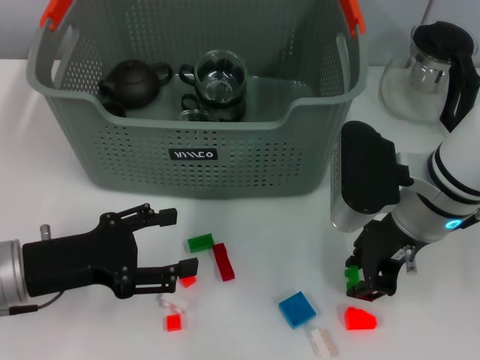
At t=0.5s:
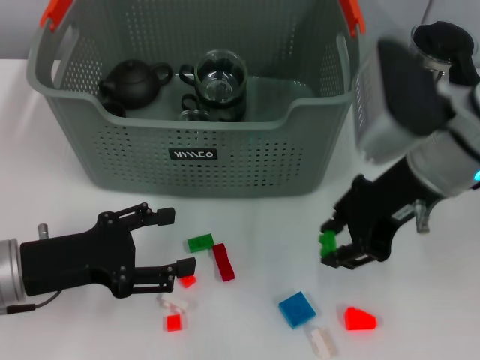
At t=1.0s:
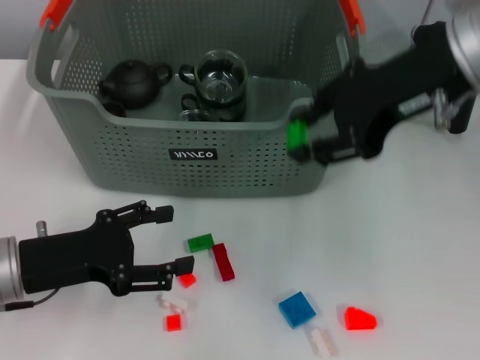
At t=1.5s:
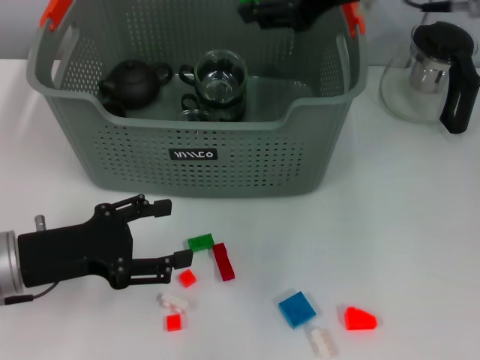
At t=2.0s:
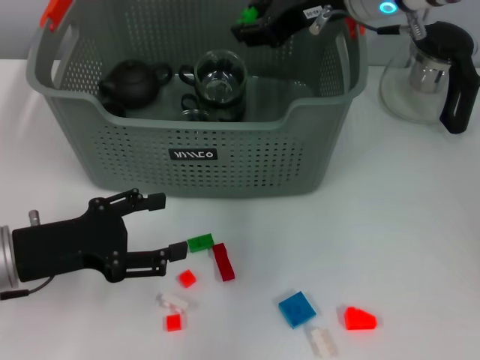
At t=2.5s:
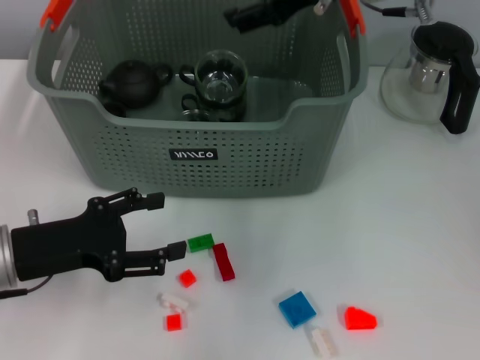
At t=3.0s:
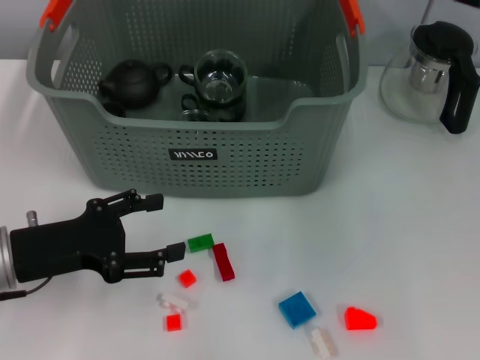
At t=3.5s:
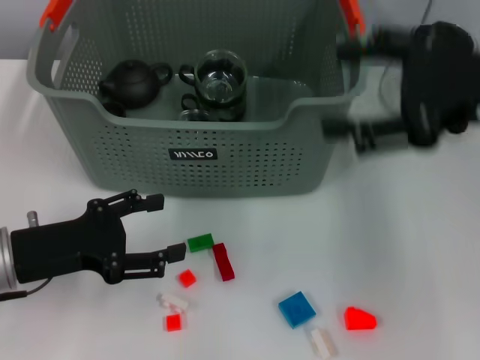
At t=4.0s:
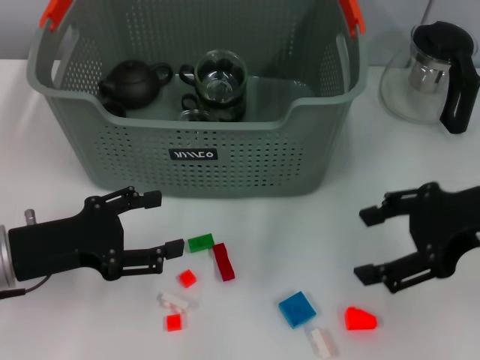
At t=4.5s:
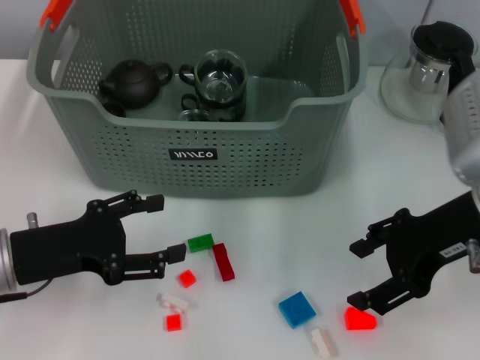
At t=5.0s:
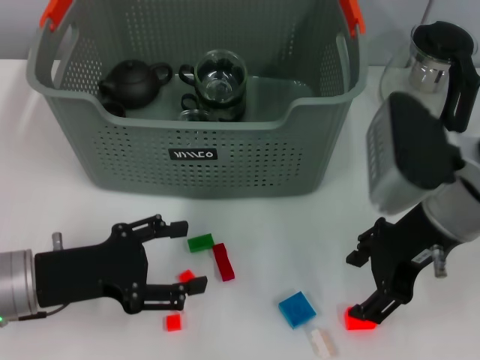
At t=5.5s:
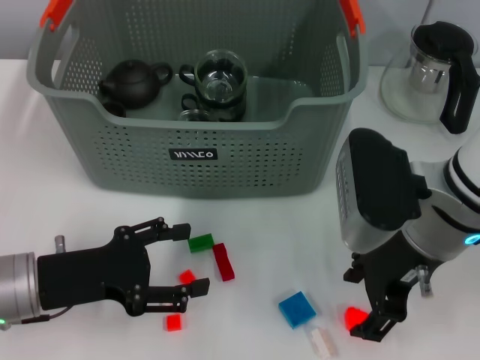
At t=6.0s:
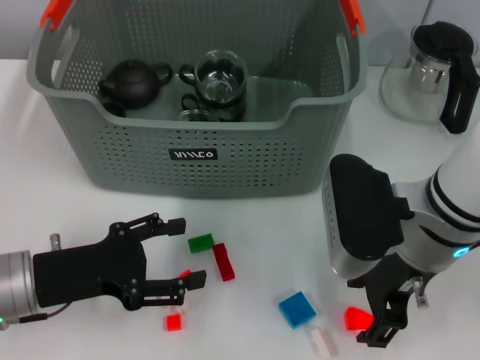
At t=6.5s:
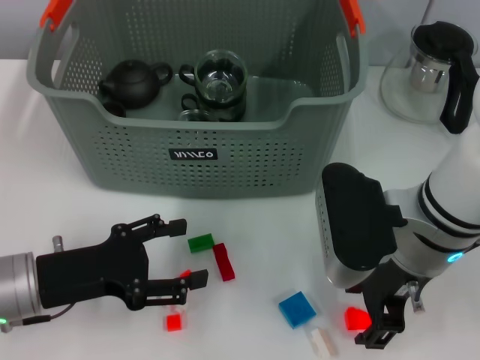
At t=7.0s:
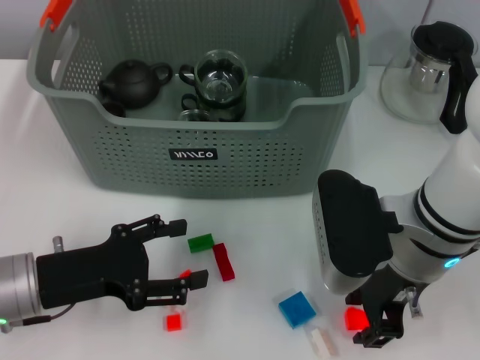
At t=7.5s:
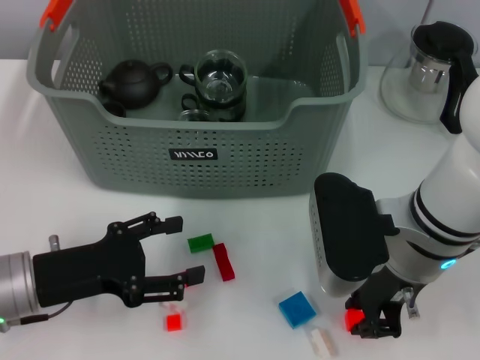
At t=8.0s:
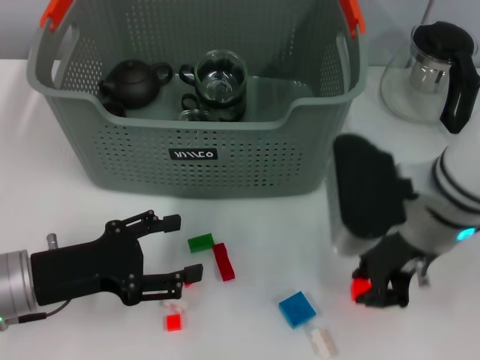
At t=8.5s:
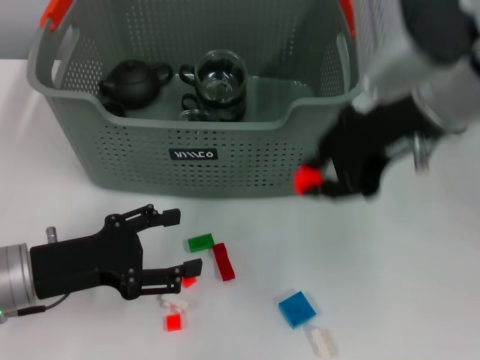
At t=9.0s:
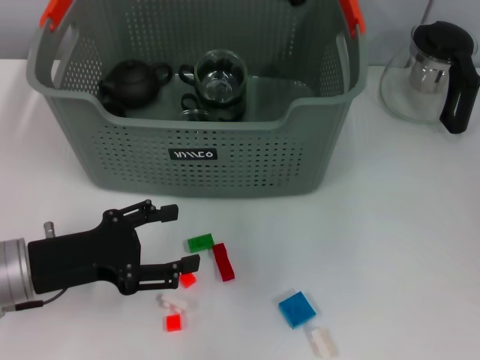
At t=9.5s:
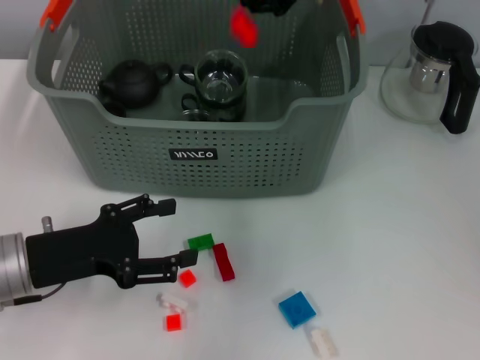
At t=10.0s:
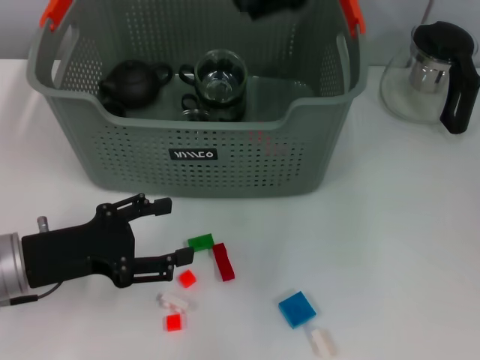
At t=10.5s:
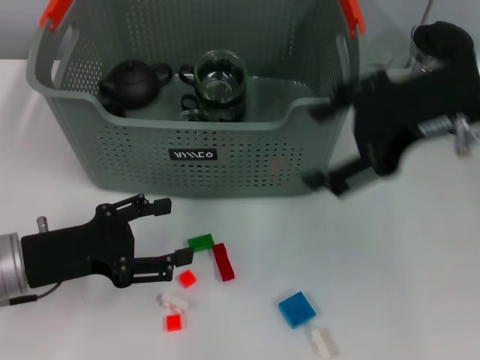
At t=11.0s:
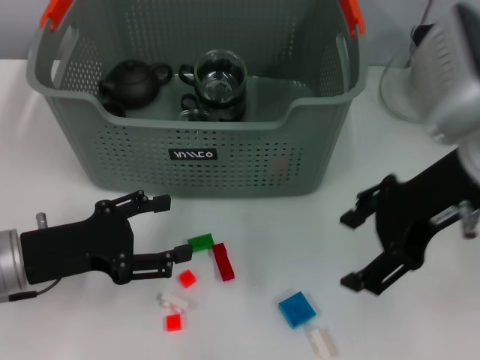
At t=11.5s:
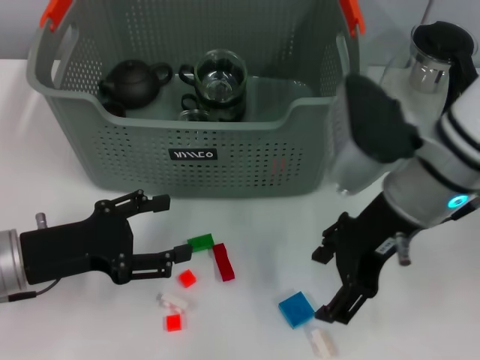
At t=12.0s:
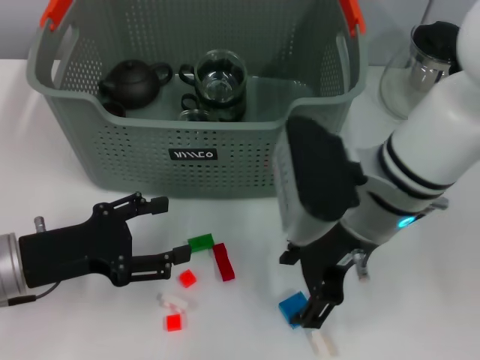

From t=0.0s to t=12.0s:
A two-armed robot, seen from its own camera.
Task of the whole recording: pick up the teacup on the table and place it into the storage bin, pick up the block on the table and place it into the storage bin.
Step, from t=0.0s to t=2.5s: Place the green block in the storage box with right gripper.
Step, from t=3.0s to t=7.5s: Grasp the orange block with right gripper.
Step, from t=8.0s to t=9.5s: Place the orange block in the storage box with right gripper.
From t=0.0s to t=2.0s: The right gripper travels upward and forward by approximately 15 cm.
From t=2.0s to t=4.0s: The right gripper goes about 20 cm backward and to the right, and opens.
From t=4.0s to t=6.0s: The right gripper is displaced to the left and downward by about 10 cm.
From t=6.0s to t=8.0s: The right gripper closes.
From t=8.0s to t=10.0s: The right gripper shifts some 15 cm upward and forward, and opens.
From t=10.0s to t=12.0s: The right gripper heads downward and backward, covering some 15 cm.

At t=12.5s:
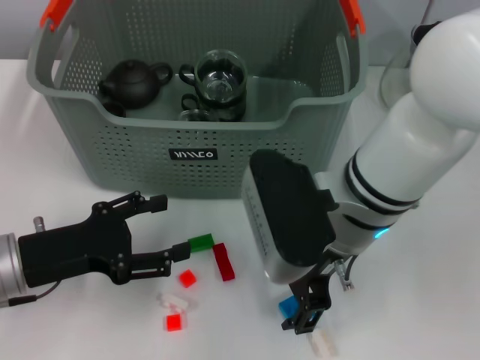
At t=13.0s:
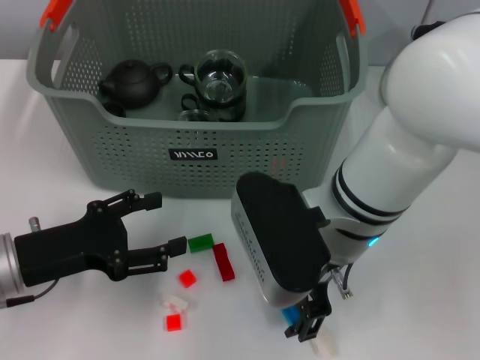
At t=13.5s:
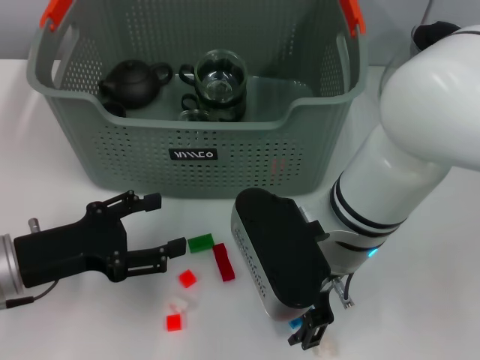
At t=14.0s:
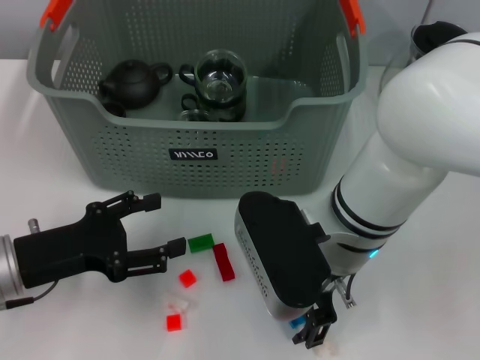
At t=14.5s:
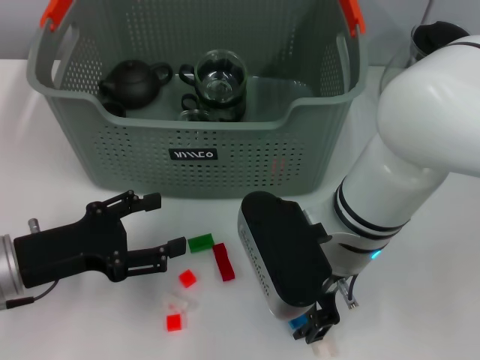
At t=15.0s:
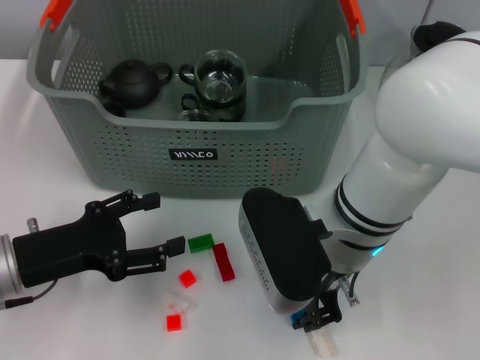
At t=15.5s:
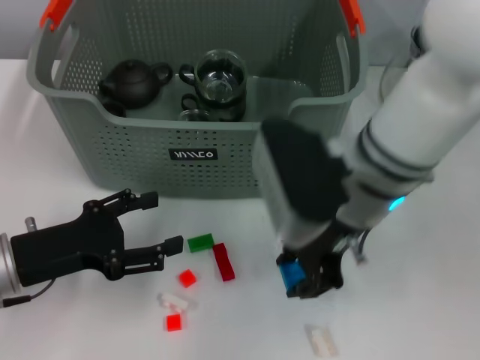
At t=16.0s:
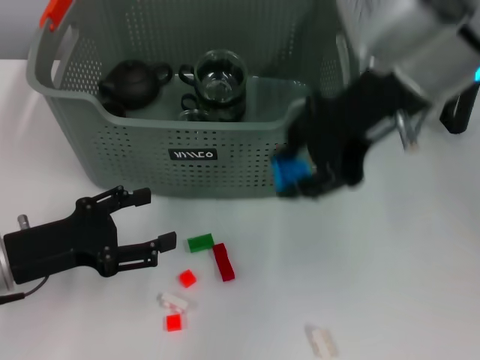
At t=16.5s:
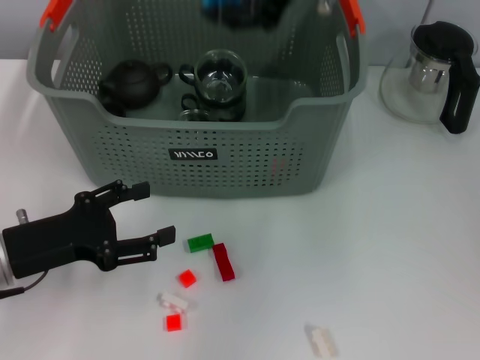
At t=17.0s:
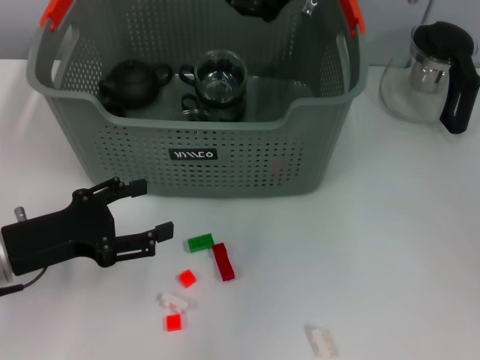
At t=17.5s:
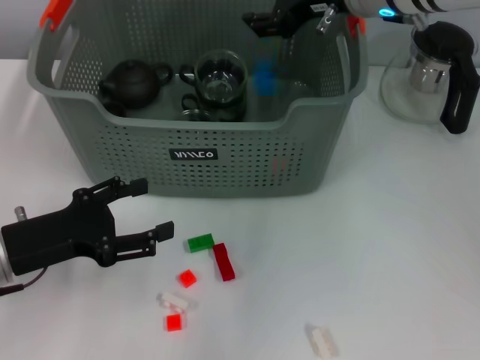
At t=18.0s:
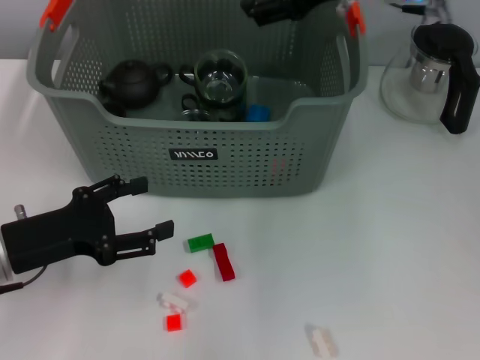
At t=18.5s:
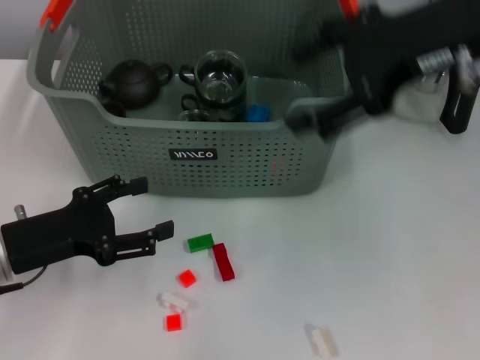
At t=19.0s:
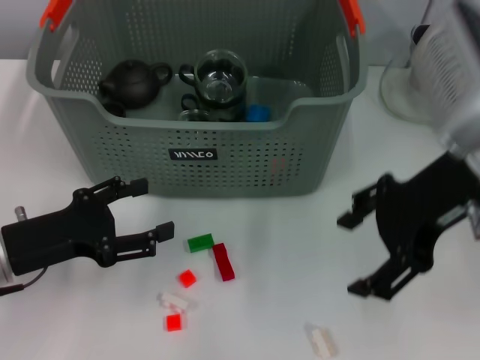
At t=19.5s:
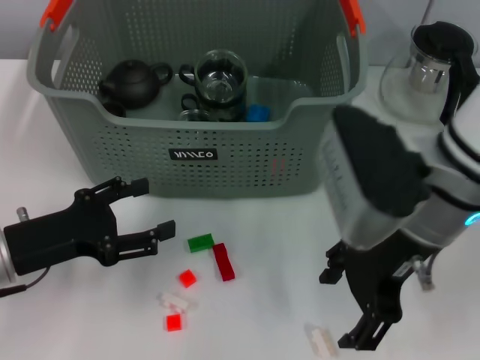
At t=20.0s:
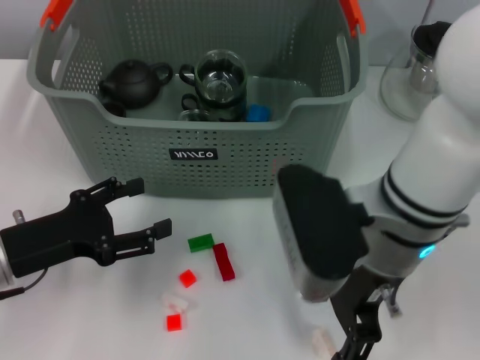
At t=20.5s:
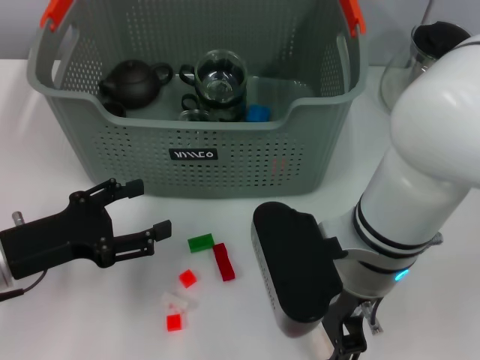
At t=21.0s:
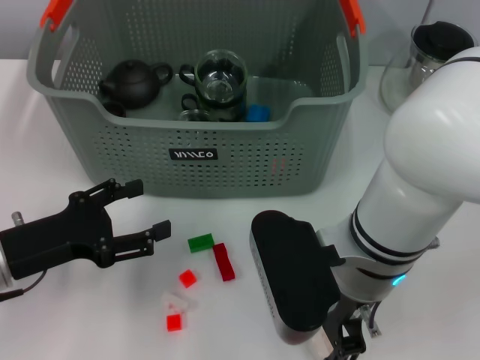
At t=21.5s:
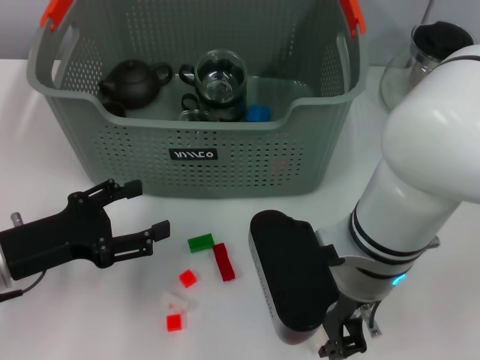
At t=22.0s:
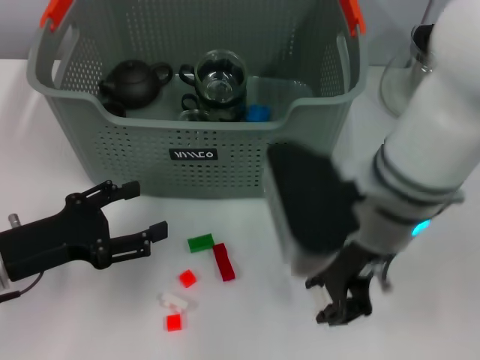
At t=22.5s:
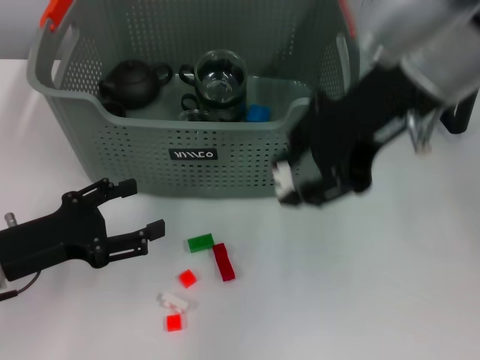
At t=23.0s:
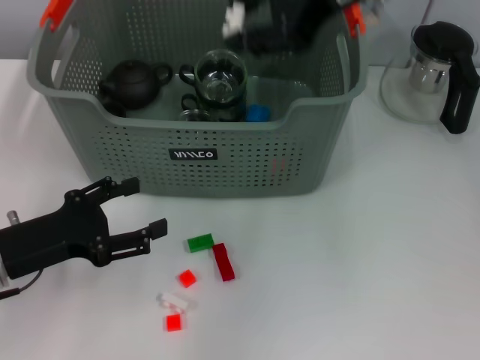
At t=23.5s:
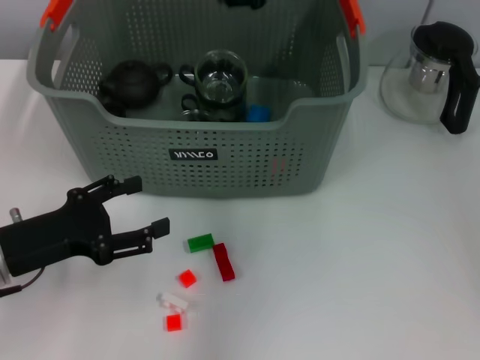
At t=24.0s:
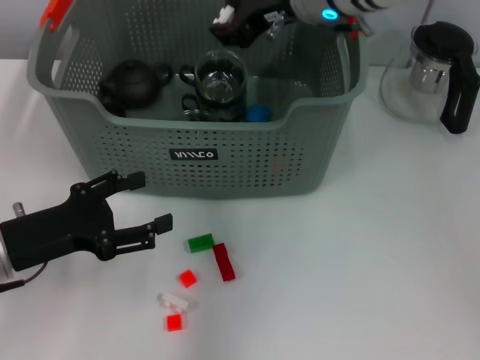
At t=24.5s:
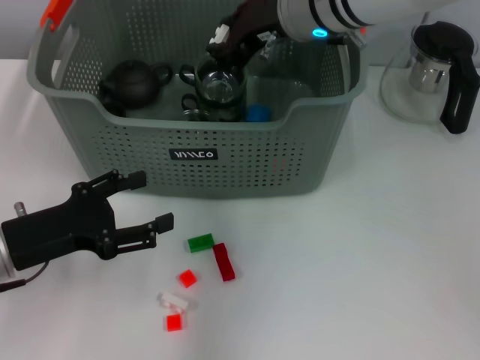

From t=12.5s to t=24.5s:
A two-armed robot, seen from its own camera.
Task of the whole recording: pick up the teacup on the table and place it into the storage bin, pick up the block on the table and place it into the storage bin.
Step, from t=12.5s to t=15.0s: Grasp the dark blue block with right gripper.
Step, from t=15.5s to t=17.5s: Place the dark blue block in the storage box with right gripper.
Step, from t=18.5s to t=21.0s: Grasp the white block with right gripper.
From t=12.5s to t=14.5s: There are only small adjustments of the grippers.
From t=14.5s to t=16.5s: The right gripper goes roughly 20 cm upward and forward, and closes up.
From t=16.5s to t=18.5s: The right gripper heads to the right, covering about 10 cm, and opens its fingers.
From t=18.5s to t=20.5s: The right gripper moves downward, to the left and backward, approximately 20 cm.
From t=20.5s to t=22.5s: The right gripper is displaced upward by approximately 15 cm, and closes.
From t=22.5s to t=24.5s: The right gripper travels forward, downward and to the left by about 15 cm.

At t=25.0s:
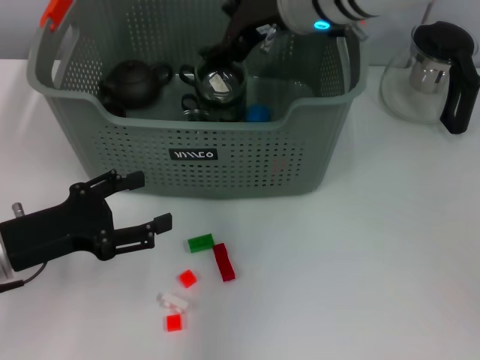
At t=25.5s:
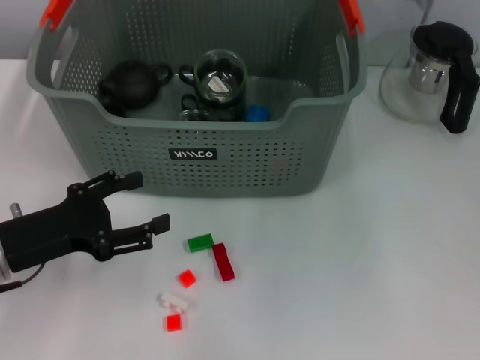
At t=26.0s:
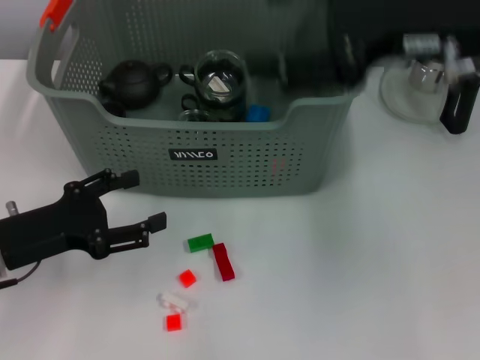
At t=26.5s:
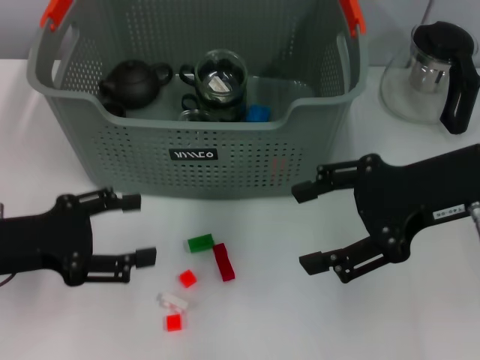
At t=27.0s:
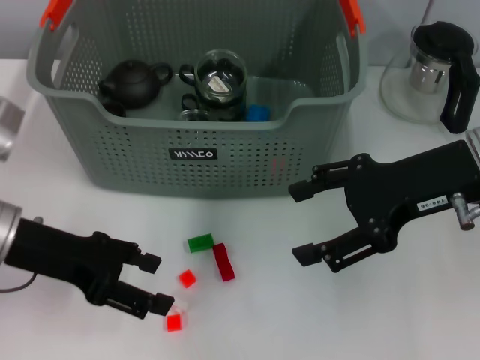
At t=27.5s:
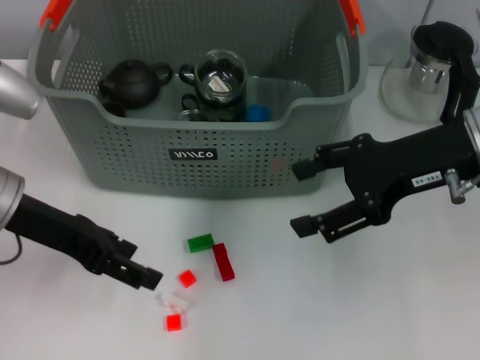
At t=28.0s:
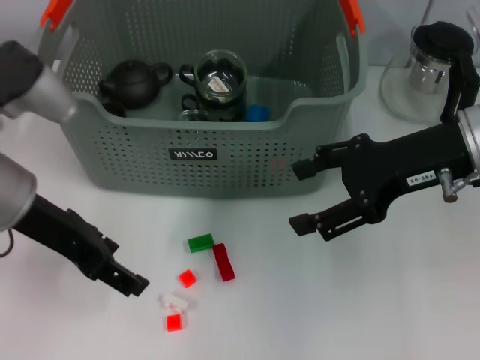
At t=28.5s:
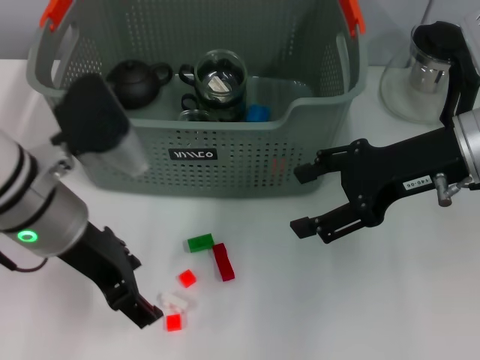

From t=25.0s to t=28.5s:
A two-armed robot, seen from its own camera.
Task of the whole recording: pick up the teacup on the table and place it into the storage bin, pick up the block on the table and place it into the storage bin.
From t=25.0s to t=27.0s: The left gripper heads upward, covering roughly 5 cm. The right gripper is displaced to the right and backward by some 20 cm.
From t=27.0s to t=28.5s: The left gripper moves to the right, some 10 cm.
